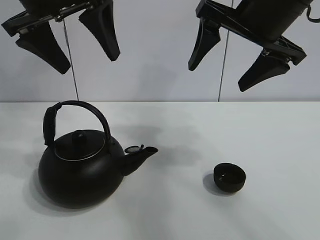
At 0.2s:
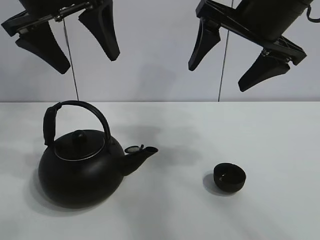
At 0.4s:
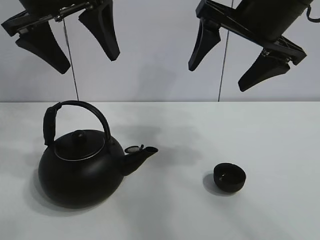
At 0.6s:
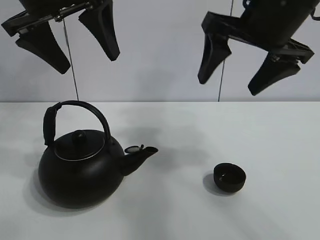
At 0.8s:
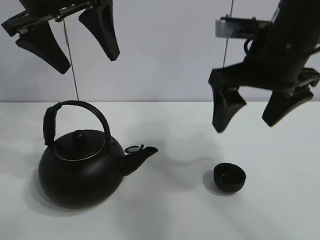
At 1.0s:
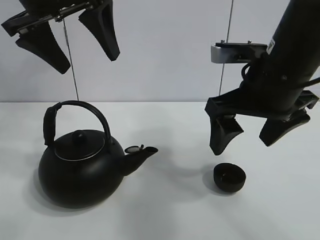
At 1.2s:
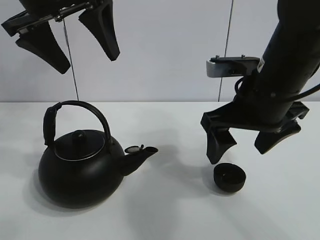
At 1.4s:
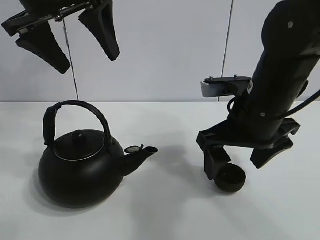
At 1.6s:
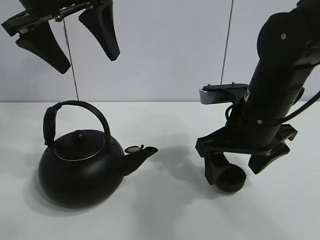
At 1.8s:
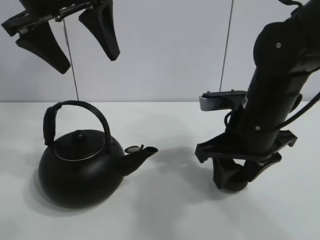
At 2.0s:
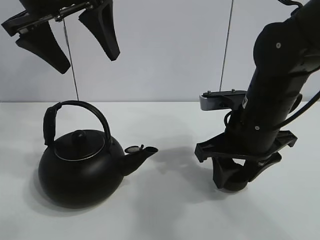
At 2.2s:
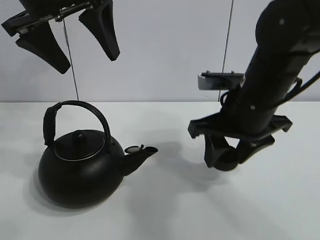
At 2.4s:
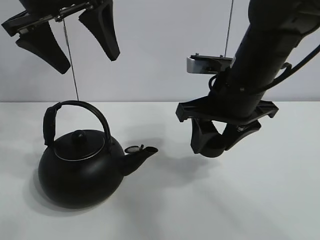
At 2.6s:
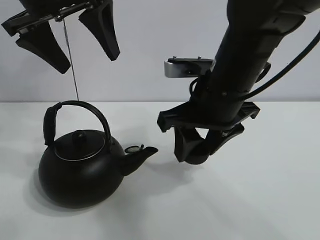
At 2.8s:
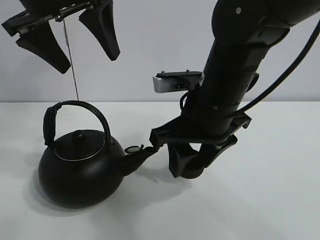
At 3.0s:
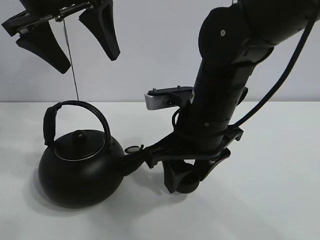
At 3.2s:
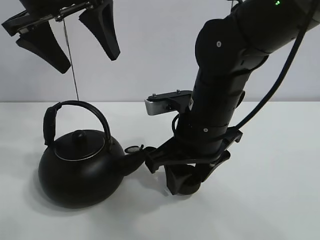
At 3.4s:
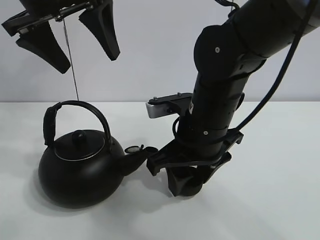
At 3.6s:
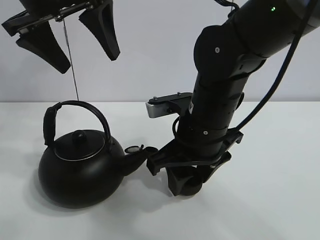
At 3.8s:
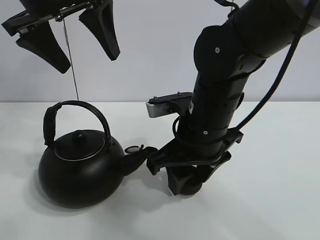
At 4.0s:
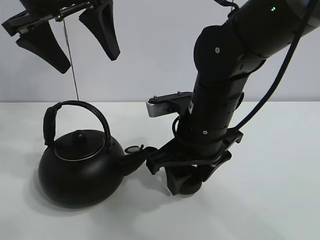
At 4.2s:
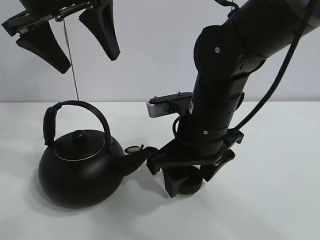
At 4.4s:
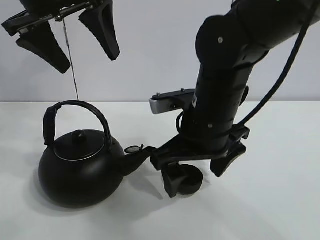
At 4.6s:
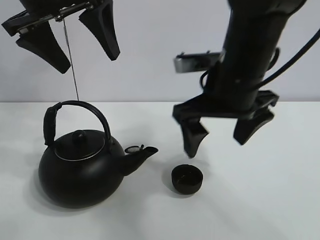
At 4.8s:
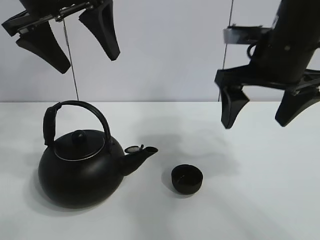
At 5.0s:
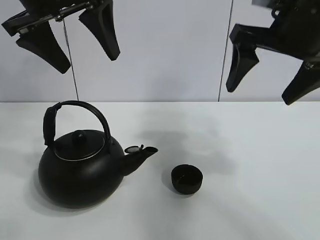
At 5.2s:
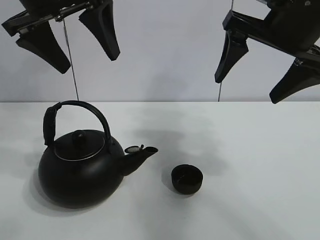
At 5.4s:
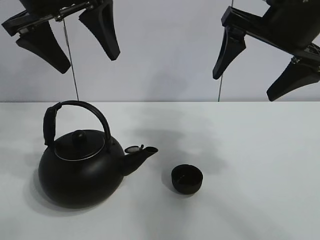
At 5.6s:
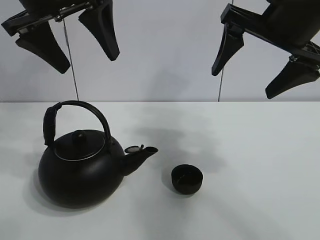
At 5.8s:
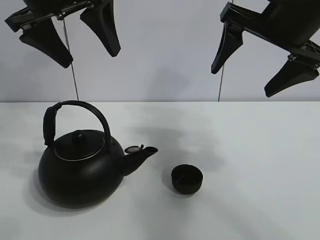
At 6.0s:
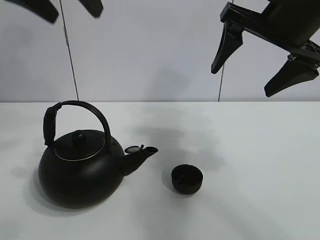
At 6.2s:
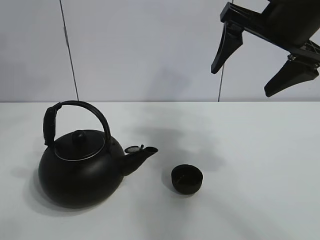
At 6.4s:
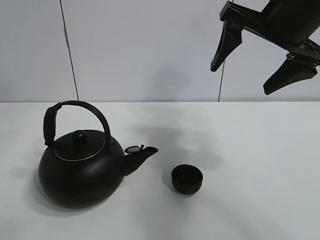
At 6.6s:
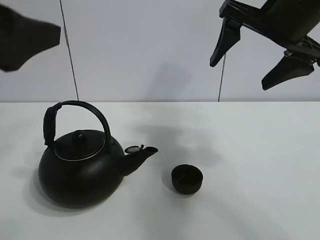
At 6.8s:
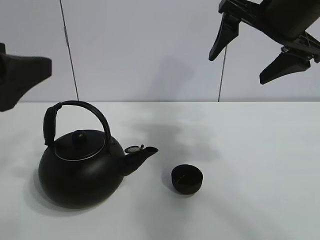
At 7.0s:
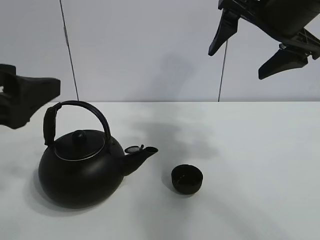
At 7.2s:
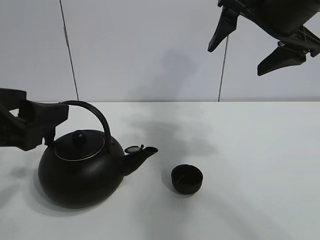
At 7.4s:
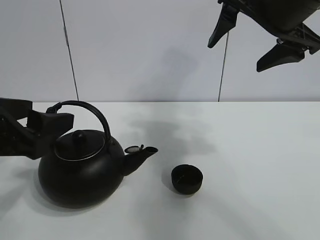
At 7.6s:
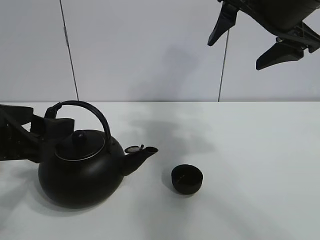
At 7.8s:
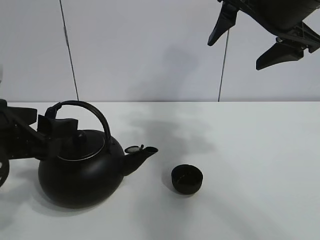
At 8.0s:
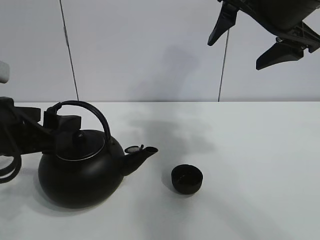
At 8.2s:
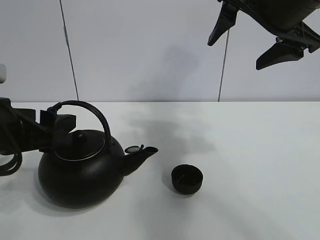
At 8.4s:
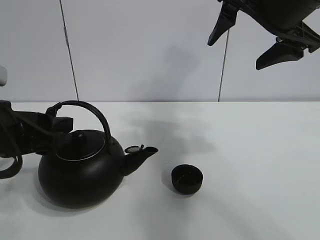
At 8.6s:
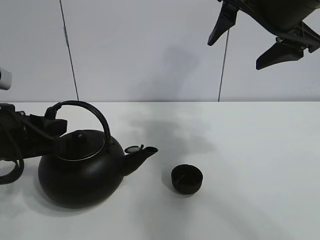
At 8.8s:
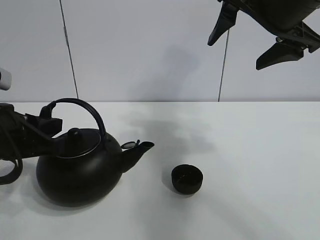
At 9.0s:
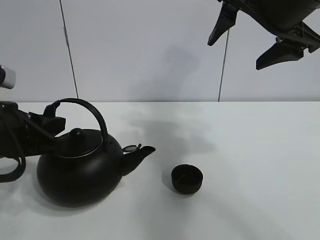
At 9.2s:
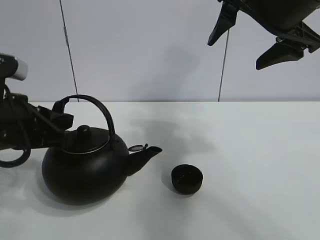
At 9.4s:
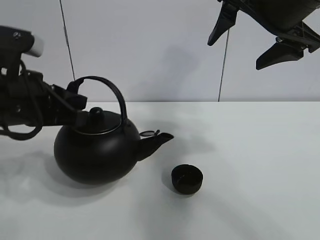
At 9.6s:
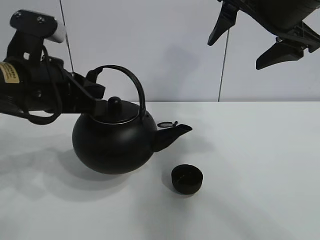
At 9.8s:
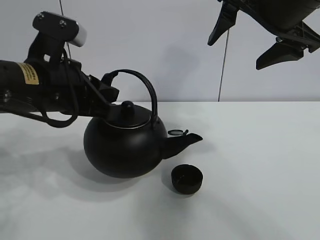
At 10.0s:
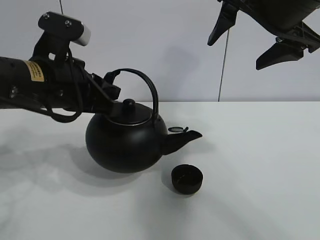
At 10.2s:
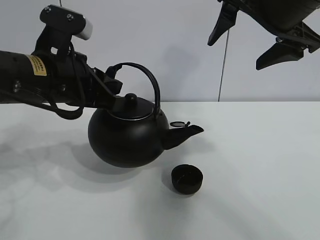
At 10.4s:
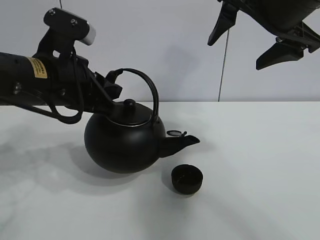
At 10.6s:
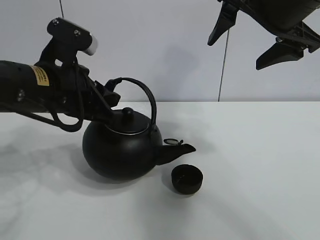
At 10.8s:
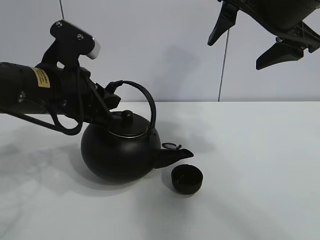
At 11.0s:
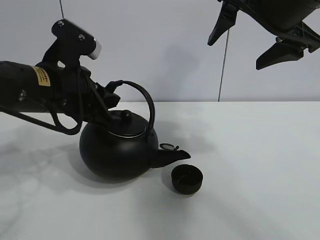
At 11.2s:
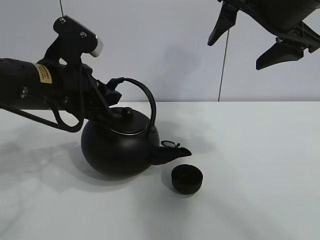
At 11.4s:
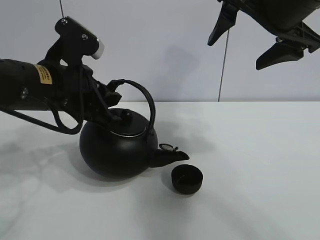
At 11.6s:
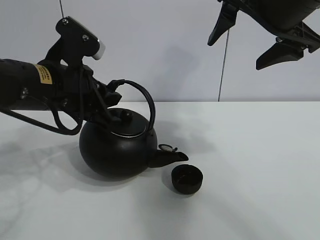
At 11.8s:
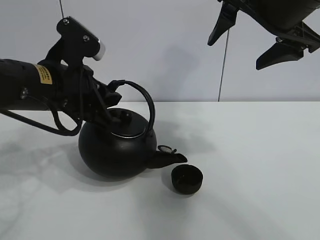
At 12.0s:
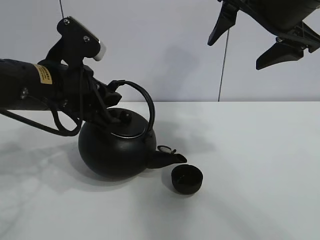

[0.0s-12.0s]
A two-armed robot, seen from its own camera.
Task of the whole recording: pour tea into the teacup.
Step, 0.0s to 2.0s: Pick up the teacup with the right gripper.
Step, 2.2s to 4.2s: Place the teacup in the center of view with the right gripper.
Step, 4.4s to 8.6s: Pick up the teapot with the left gripper.
1.6s to 3.0s: The right gripper is displaced to the left by roughly 10 cm, and closes up.
3.0s to 4.4s: The right gripper opens its fingers.
4.4s to 6.0s: The right gripper is displaced upward and to the right by approximately 20 cm.
6.0s to 7.6s: The left gripper shifts about 25 cm downward and backward.
7.6s to 9.0s: The left gripper closes its fingers.
9.0s to 10.4s: The left gripper travels to the right, forward and upward by some 10 cm.
10.4s to 12.0s: There are only small adjustments of the grippers.

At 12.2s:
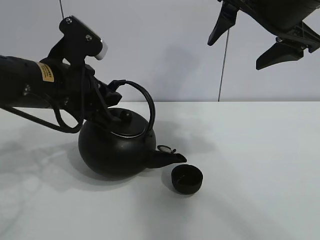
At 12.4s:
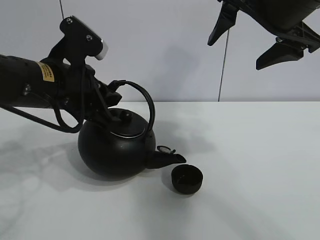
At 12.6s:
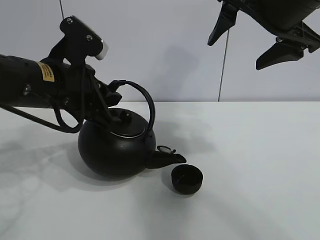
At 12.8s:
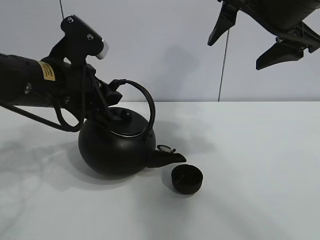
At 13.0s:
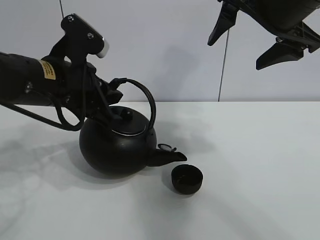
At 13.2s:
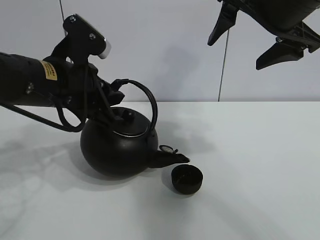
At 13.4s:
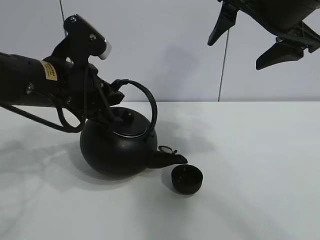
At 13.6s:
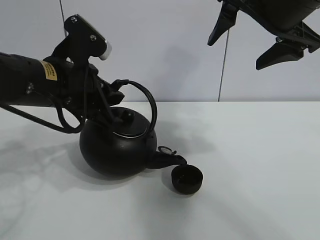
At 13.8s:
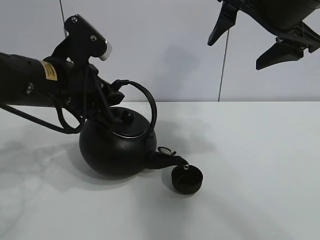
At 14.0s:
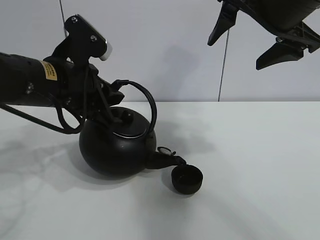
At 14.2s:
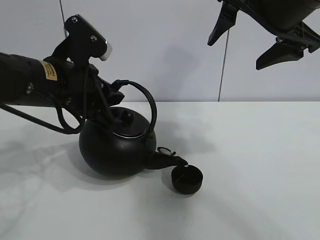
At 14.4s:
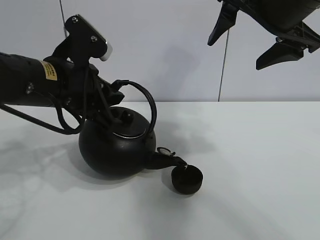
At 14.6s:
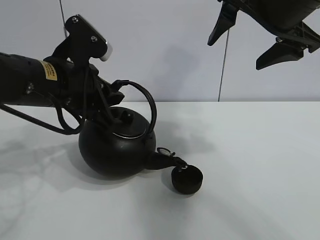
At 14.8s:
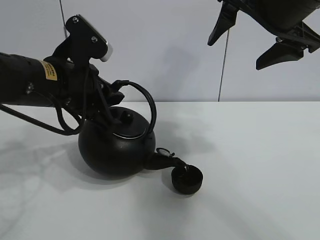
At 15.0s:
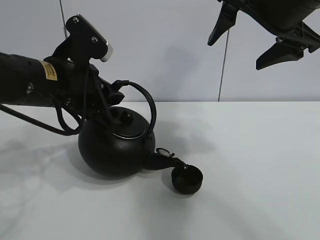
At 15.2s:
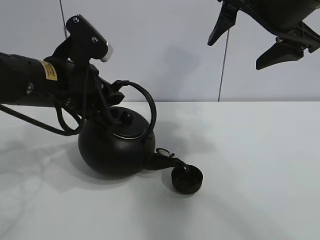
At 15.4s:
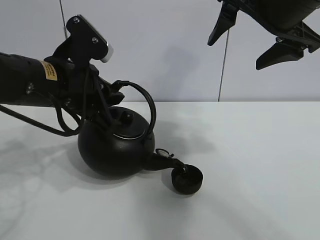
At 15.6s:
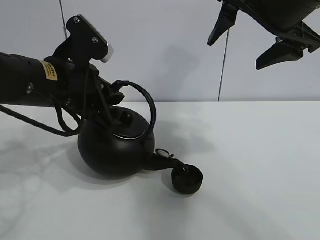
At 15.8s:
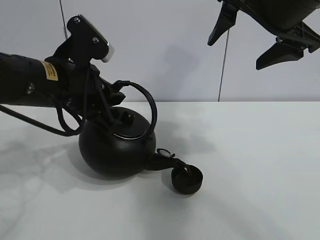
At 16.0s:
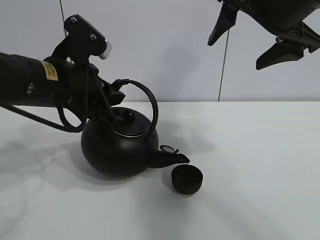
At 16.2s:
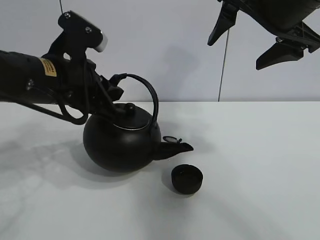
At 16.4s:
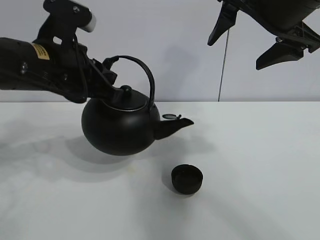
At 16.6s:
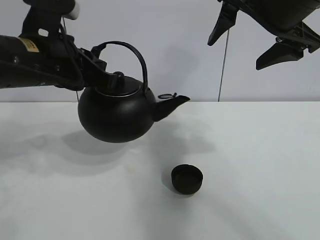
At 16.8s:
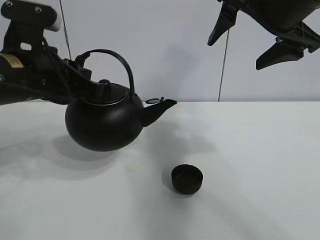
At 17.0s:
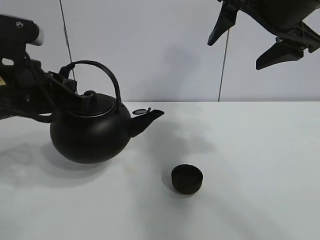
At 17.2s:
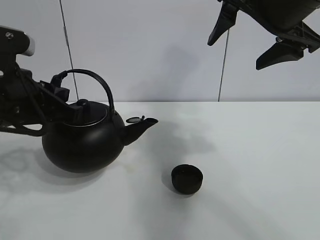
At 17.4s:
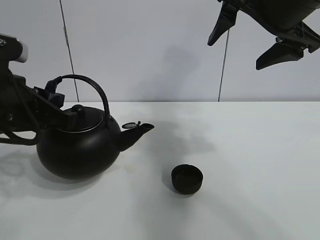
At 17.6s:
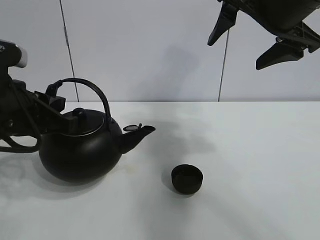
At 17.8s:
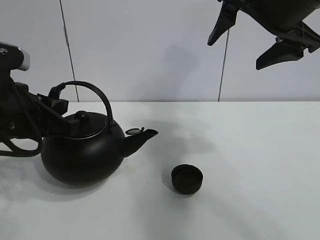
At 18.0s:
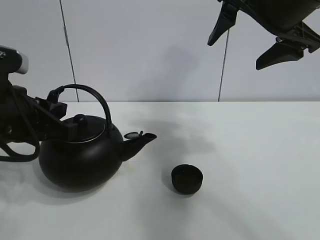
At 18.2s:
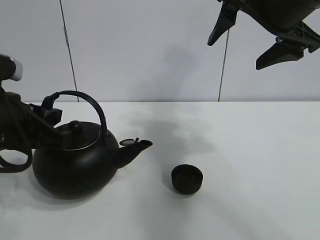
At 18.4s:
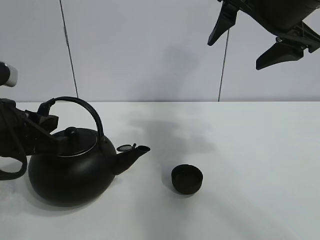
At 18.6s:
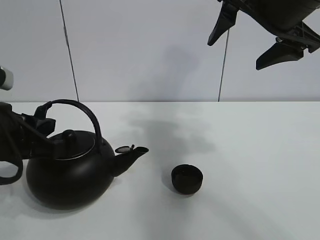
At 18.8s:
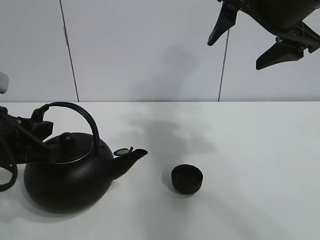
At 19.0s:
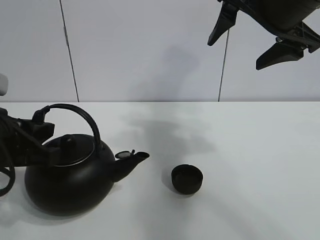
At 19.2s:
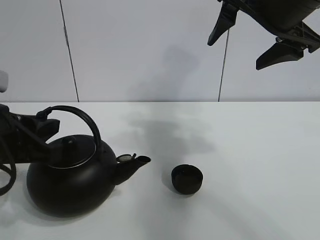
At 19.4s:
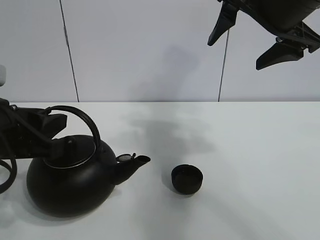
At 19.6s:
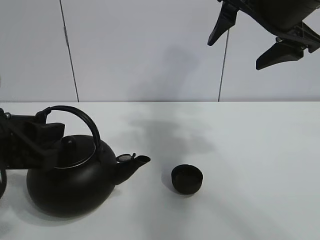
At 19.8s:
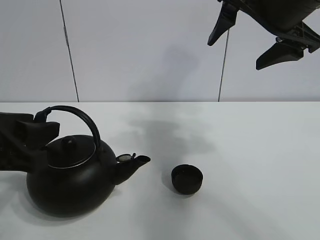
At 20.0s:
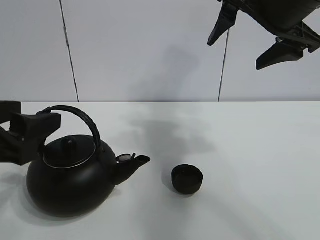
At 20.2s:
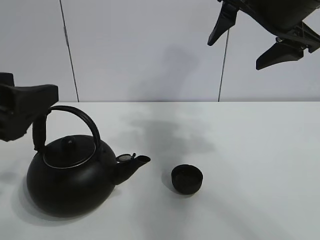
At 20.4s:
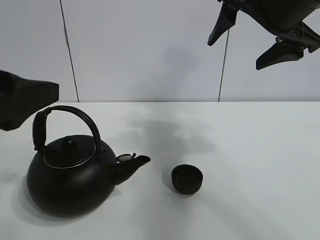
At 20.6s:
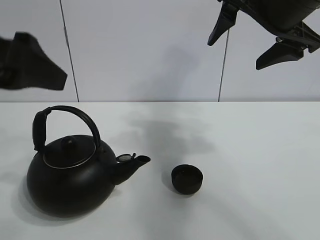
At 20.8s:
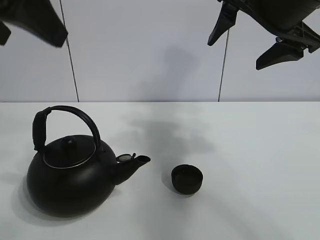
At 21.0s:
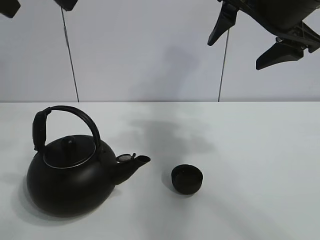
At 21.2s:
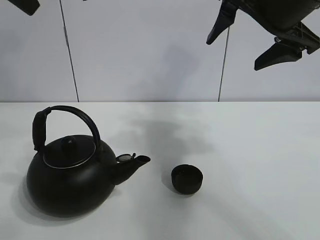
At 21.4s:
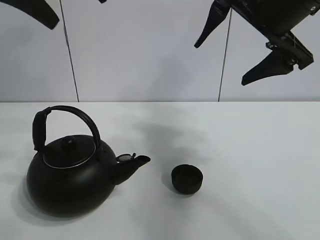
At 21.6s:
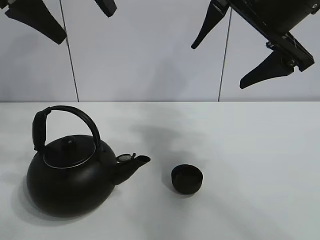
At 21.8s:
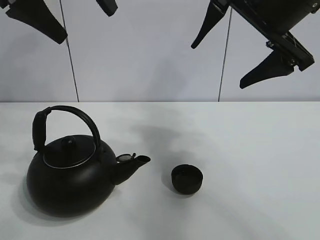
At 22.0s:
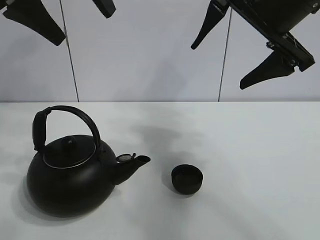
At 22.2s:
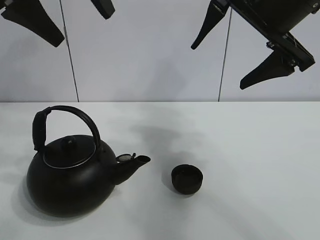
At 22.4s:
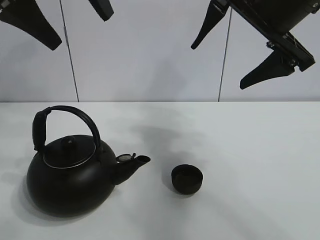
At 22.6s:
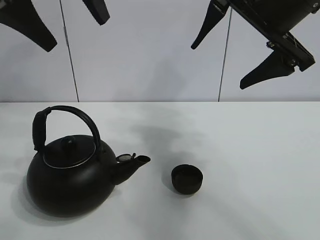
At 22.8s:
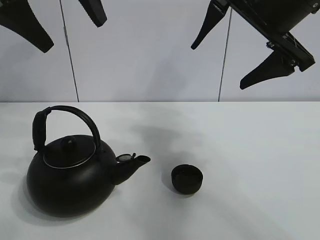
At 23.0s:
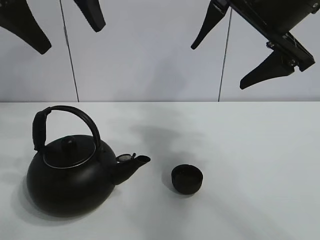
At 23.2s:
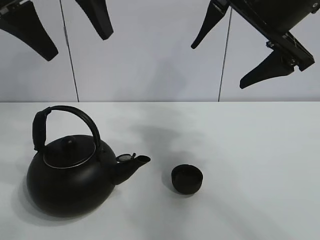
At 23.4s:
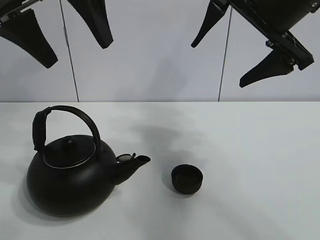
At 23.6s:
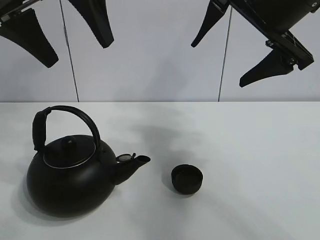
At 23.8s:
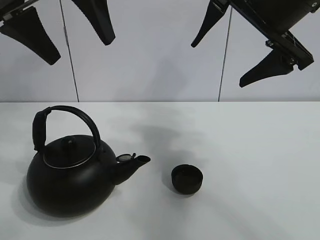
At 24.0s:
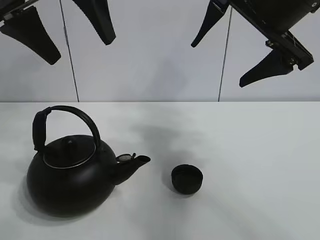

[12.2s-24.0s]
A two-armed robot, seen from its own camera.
Task of the whole recording: pour tea into the teacup.
Step, 12.2s to 16.0s: Pour tea into the teacup with the left gripper.
12.2s to 15.2s: Both grippers stay put.
16.6s to 18.2s: The left gripper shifts roughly 10 cm backward, downward and to the left.
18.2s to 19.6s: The left gripper opens.
19.6s to 21.0s: The left gripper is displaced upward by some 25 cm, and opens its fingers.
21.0s to 22.6s: The left gripper moves forward, some 10 cm.
22.6s to 24.0s: The grippers stay close to where they were, moving slightly.
